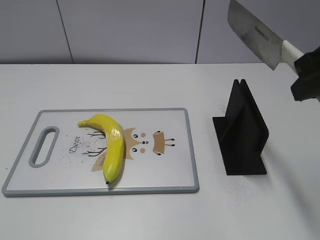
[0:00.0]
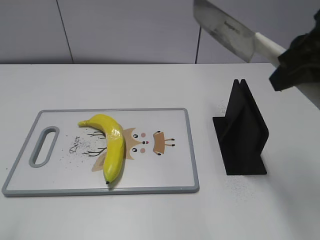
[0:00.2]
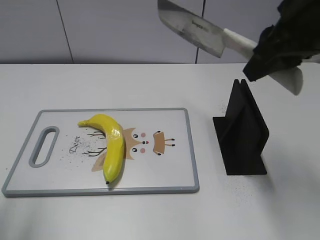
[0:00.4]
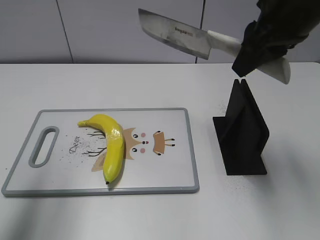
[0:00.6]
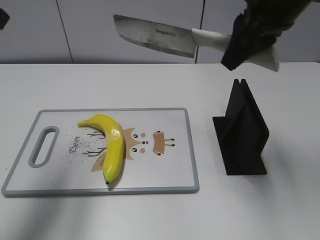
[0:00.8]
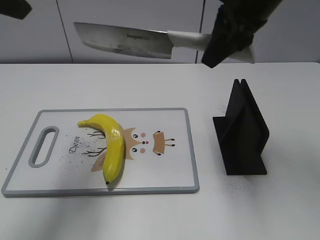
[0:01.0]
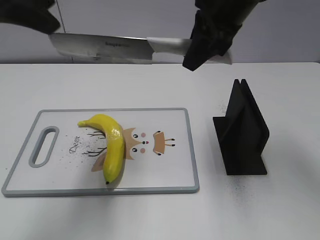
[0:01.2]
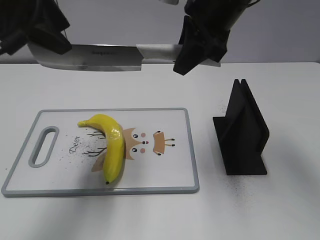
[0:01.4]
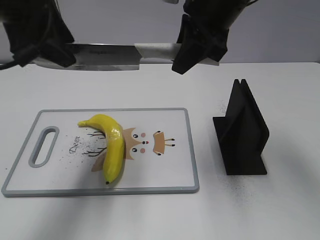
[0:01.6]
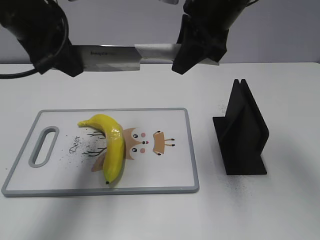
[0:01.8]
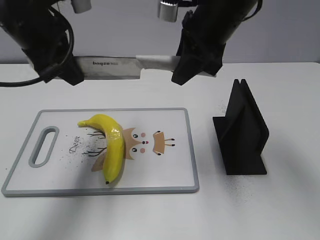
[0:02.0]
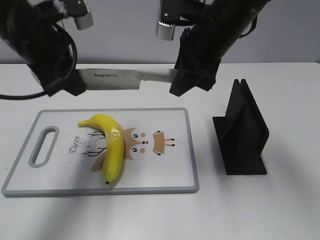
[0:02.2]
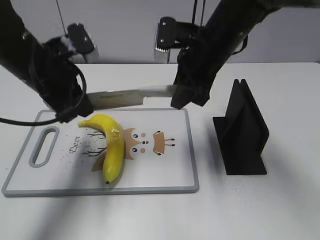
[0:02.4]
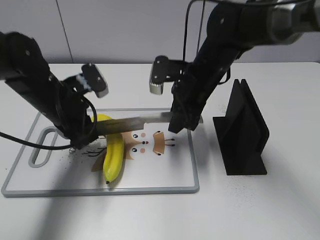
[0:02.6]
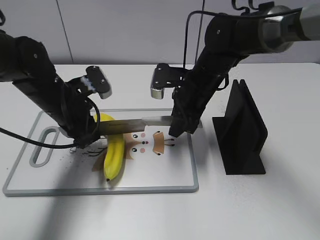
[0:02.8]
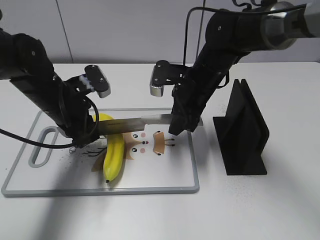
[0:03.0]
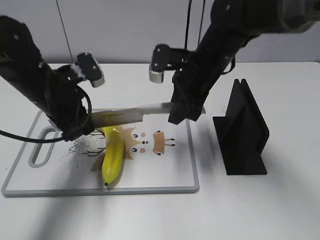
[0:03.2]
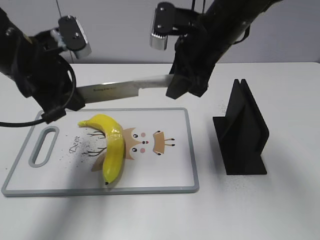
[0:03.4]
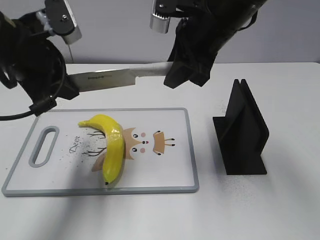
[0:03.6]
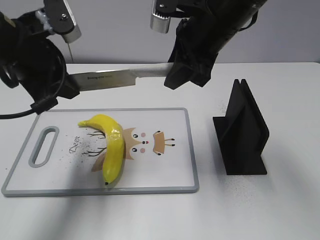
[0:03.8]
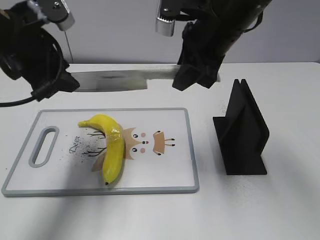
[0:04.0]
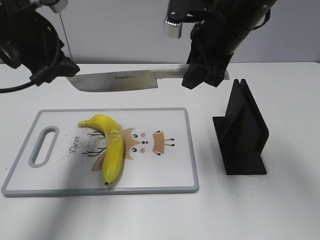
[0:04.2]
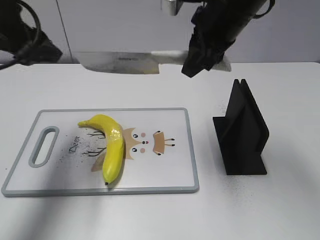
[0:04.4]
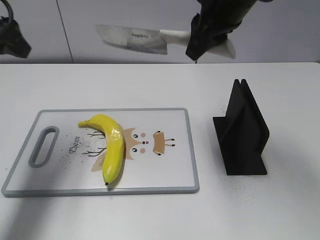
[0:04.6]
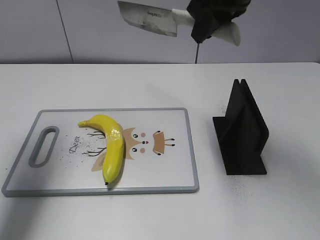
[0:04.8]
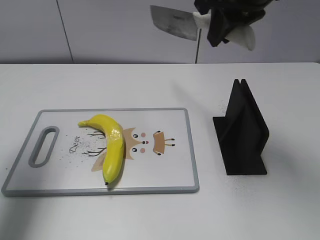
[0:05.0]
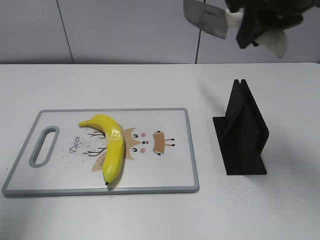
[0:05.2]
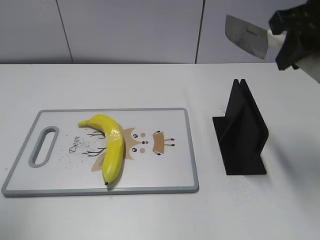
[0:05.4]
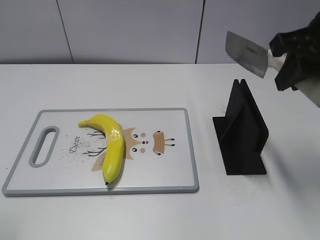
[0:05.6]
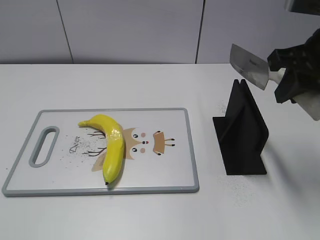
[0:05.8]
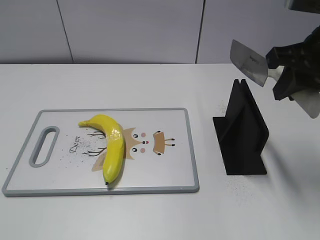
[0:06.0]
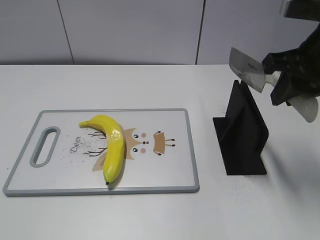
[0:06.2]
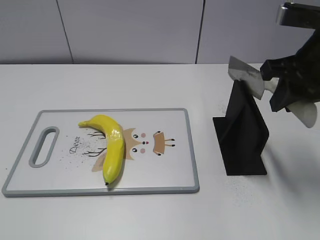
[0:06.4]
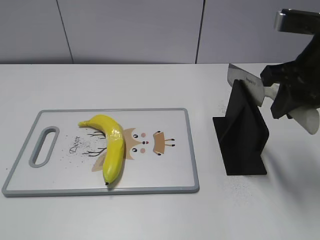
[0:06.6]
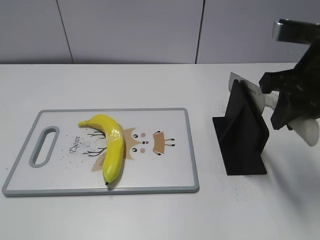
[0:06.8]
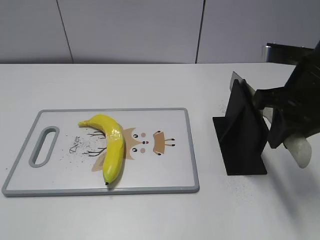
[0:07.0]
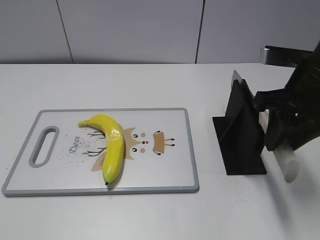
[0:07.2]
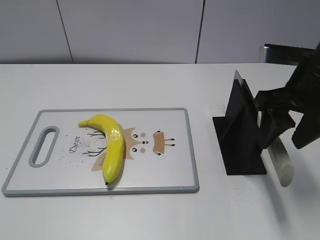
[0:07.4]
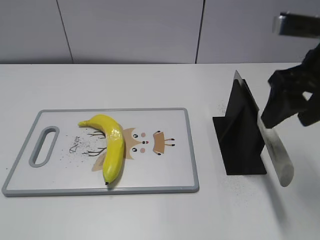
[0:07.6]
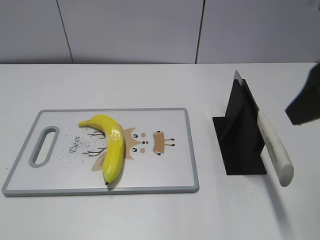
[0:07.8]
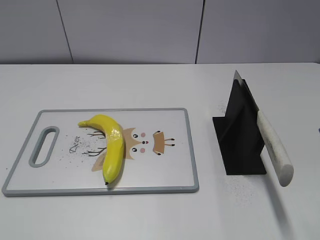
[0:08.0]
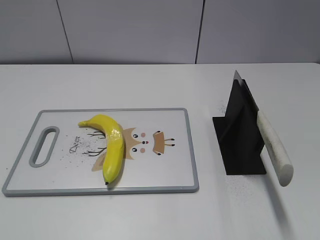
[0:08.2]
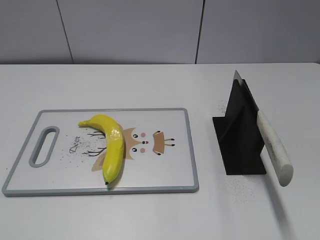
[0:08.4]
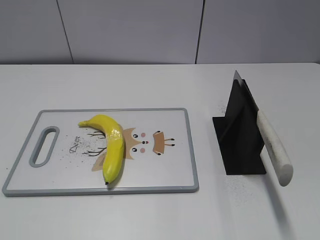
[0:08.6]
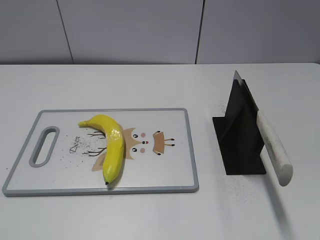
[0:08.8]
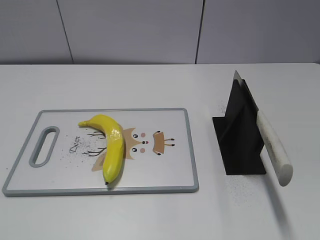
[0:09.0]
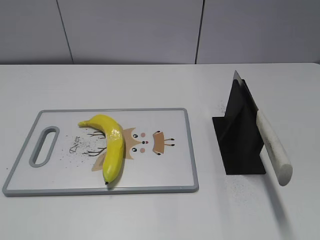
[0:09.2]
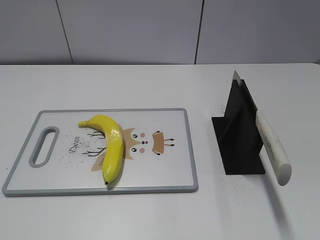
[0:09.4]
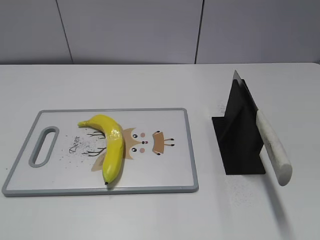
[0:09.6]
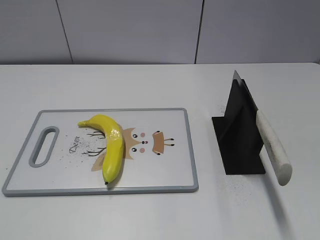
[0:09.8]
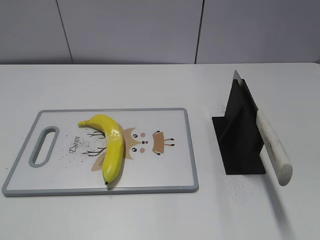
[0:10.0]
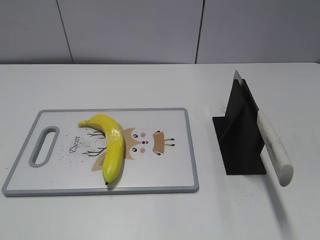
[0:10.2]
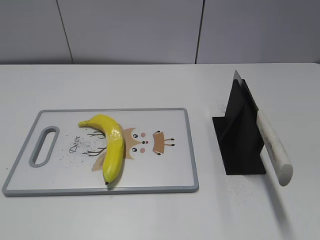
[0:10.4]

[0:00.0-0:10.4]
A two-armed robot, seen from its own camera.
Task of the whole recording: cut plastic banana.
Step, 0:00.2 to 0:03.4: Hold the blade with your left hand.
Step, 0:03.6 to 0:04.8: Cut the banana with your right hand.
Step, 0:05.0 to 0:06.0: Secure the blade with your left hand.
Step, 0:06.2 to 0:10.2: Place the knife on the storage rack with your right hand.
0:00.0 to 0:01.4: The left gripper shifts some 30 cm forward and to the right. Meanwhile the right gripper heads forward and to the left, covering roughly 20 cm.
0:01.4 to 0:03.0: Both grippers move downward, approximately 20 cm. The left gripper closes its fingers.
0:03.0 to 0:04.4: The grippers both shift upward by about 15 cm. The left gripper opens.
0:04.4 to 0:06.0: The right gripper heads to the right and backward, covering roughly 15 cm, while the left gripper travels backward by some 30 cm.
0:06.0 to 0:07.4: The right gripper opens up.
0:07.4 to 0:09.0: The right gripper moves backward, some 25 cm.

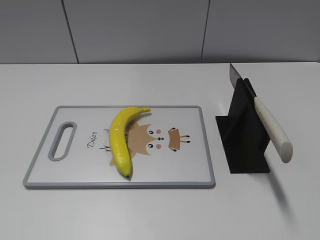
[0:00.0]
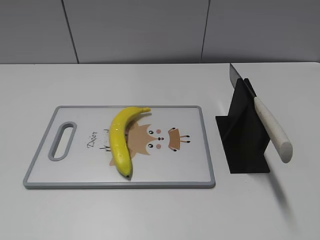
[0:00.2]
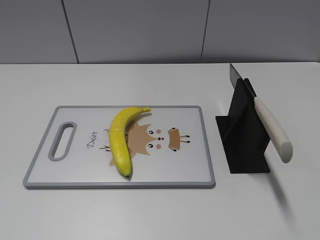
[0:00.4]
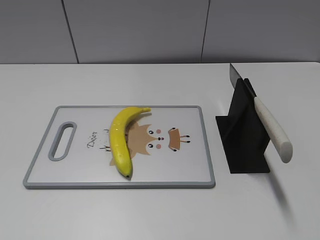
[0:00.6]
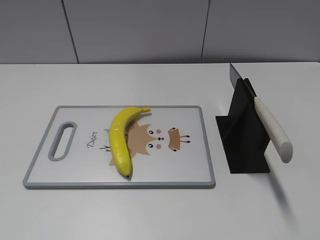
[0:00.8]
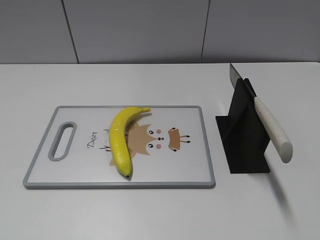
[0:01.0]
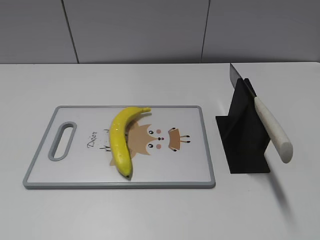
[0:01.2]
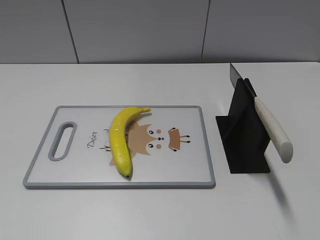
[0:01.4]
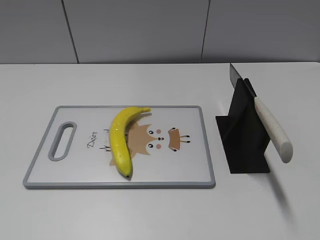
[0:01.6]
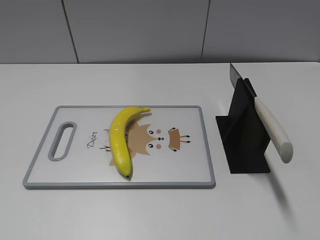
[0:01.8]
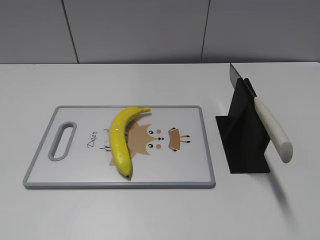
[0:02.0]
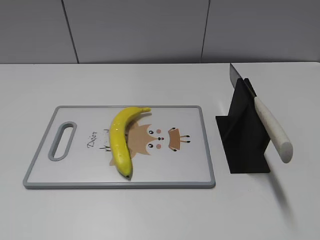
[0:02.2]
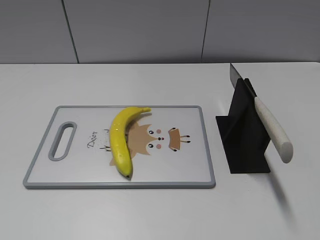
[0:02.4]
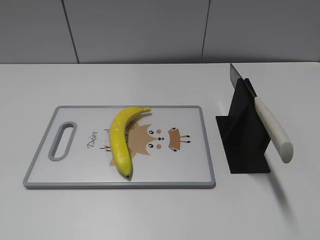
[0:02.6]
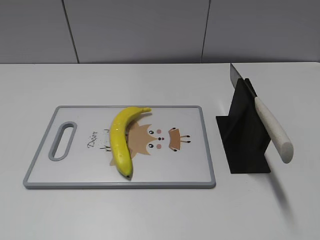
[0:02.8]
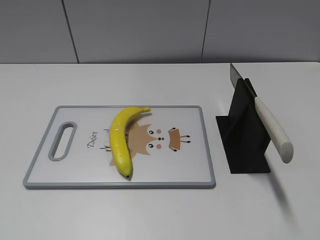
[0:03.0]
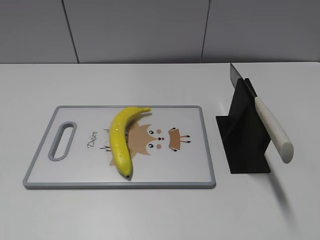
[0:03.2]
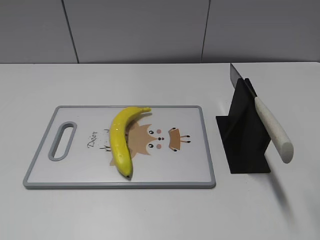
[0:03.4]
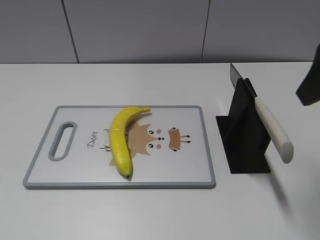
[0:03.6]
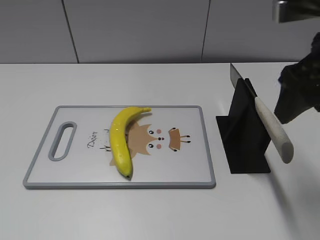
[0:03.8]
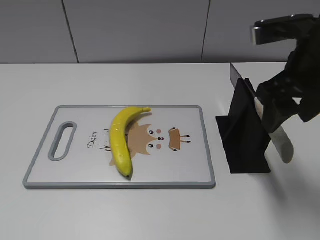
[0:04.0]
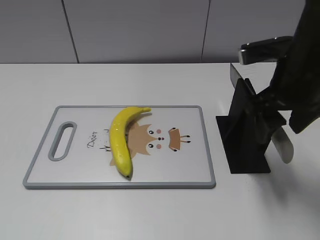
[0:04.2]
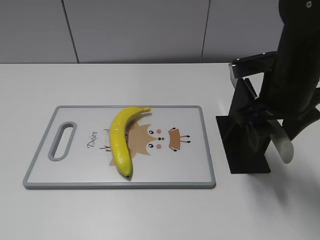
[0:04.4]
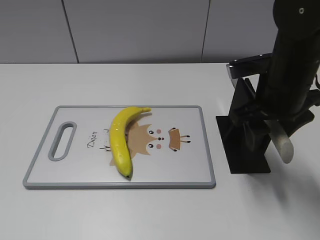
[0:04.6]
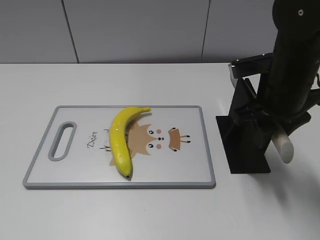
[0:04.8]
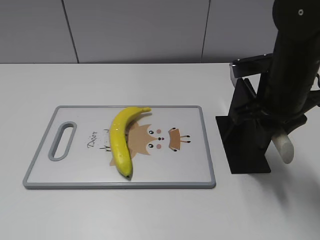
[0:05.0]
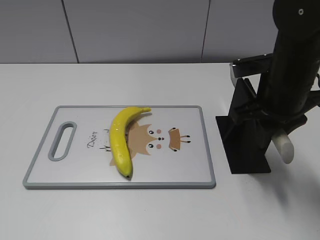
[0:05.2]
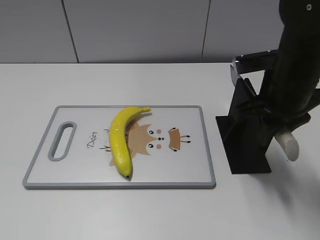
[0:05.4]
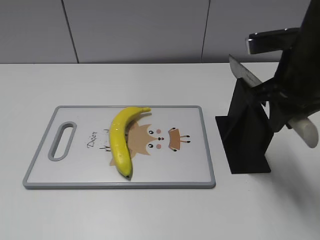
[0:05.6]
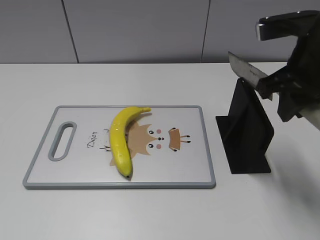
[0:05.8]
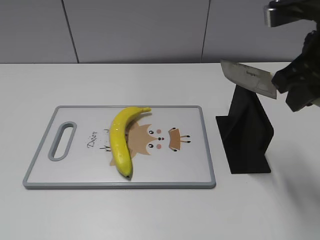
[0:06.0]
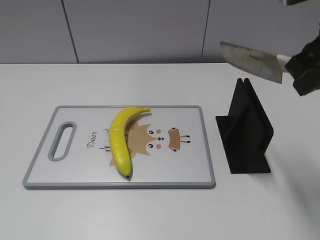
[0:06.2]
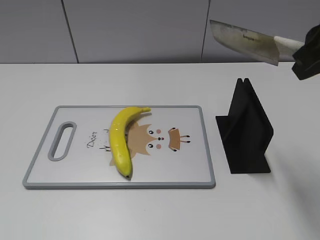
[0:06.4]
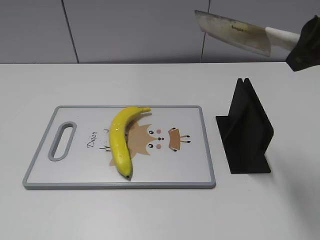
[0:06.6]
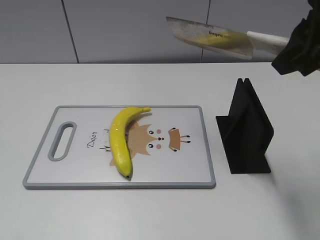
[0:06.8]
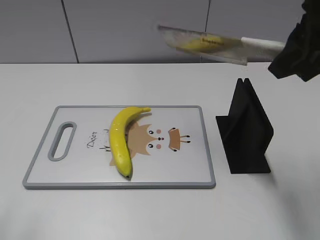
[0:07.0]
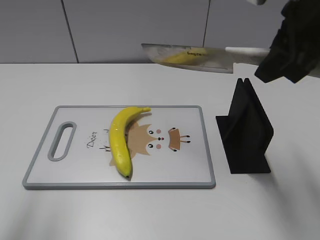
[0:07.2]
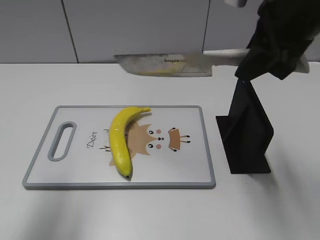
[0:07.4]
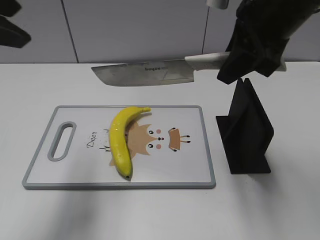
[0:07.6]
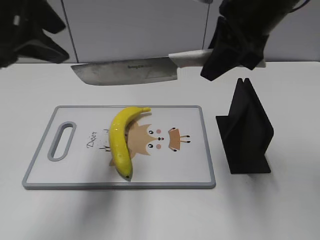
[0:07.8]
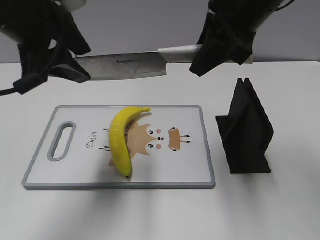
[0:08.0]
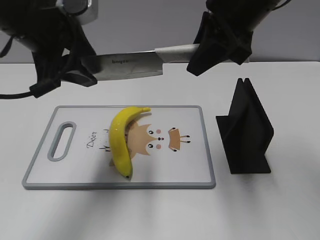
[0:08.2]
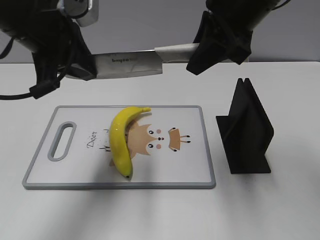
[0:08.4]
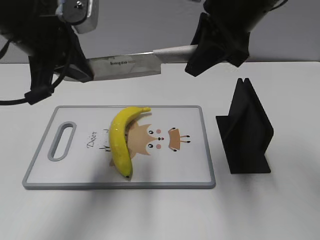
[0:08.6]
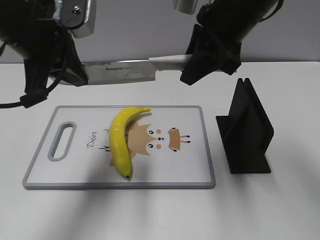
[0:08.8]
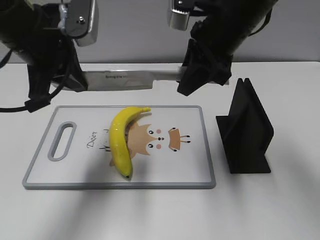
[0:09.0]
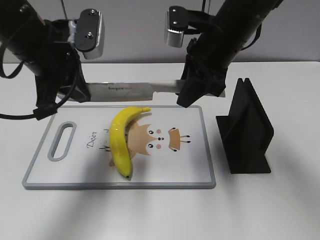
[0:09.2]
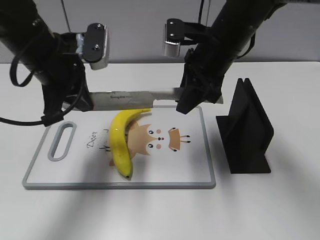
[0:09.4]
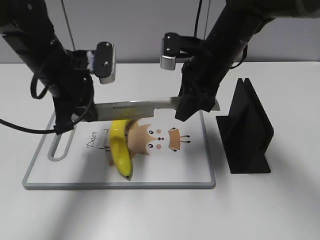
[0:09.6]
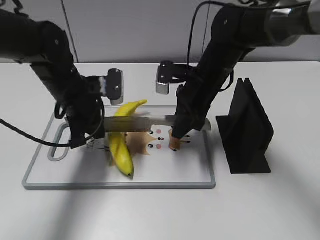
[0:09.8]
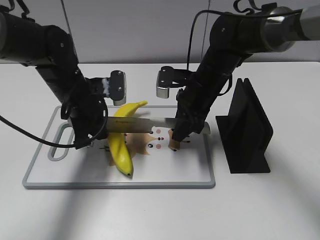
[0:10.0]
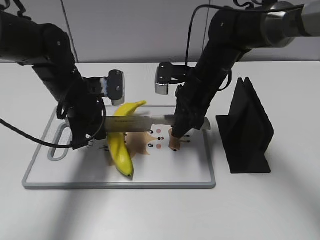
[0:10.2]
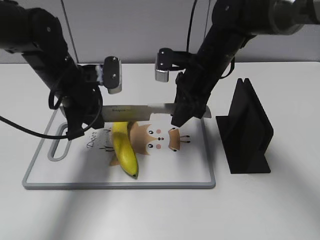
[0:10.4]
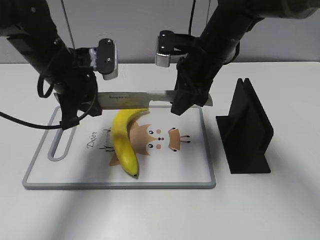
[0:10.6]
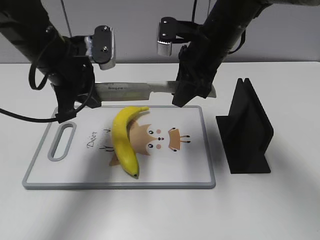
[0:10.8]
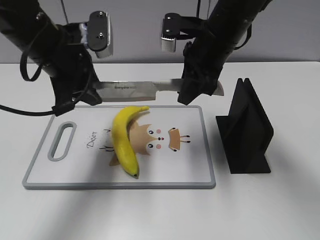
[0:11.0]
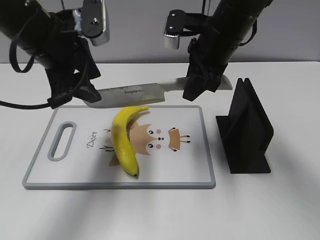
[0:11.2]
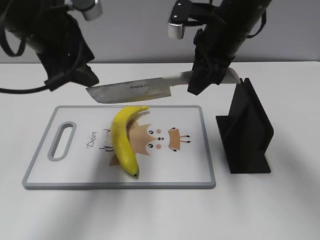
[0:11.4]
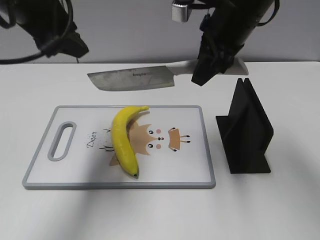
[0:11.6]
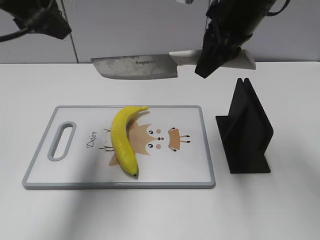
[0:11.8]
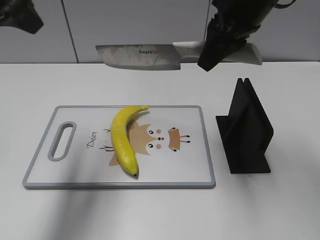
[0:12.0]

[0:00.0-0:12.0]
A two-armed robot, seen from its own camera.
Task of the whole recording: cut plastic banana.
Step, 0:00.0 to 0:06.0: Grab the knife handle with your right hand.
Step, 0:06.2 to 0:10.8: Lift the knife with your right hand.
0:03.0 to 0:04.4: The right gripper shifts about 25 cm forward, downward and to the left.
0:04.4 to 0:06.0: The right gripper moves upward, roughly 10 cm, and closes up.
0:06.0 to 0:07.6: The left gripper is displaced forward, upward and to the right by some 30 cm, while the right gripper goes about 5 cm to the left.
0:07.6 to 0:09.0: The right gripper heads downward and forward, covering roughly 5 cm; the left gripper moves downward, forward and to the right, roughly 15 cm, and closes up.
0:09.0 to 0:10.4: Both grippers travel together downward, roughly 10 cm.
0:10.4 to 0:12.0: The two grippers go some 15 cm upward. The left gripper opens up.
